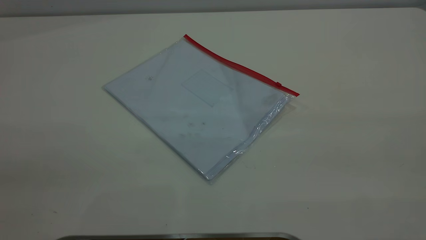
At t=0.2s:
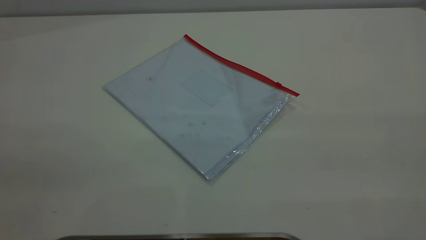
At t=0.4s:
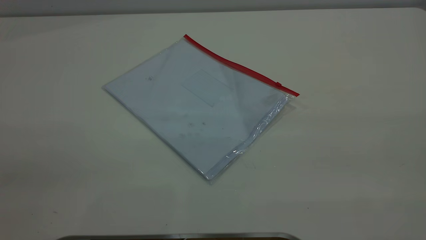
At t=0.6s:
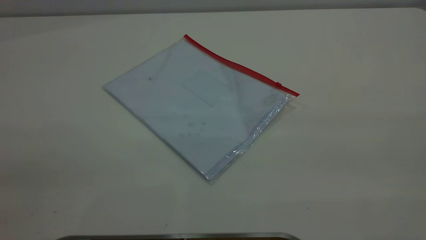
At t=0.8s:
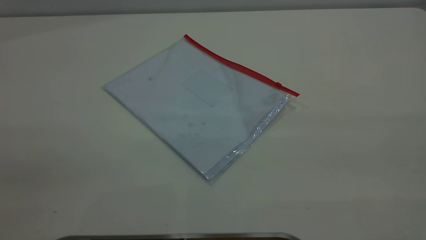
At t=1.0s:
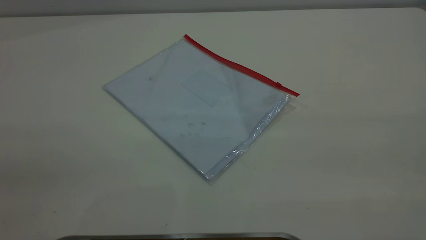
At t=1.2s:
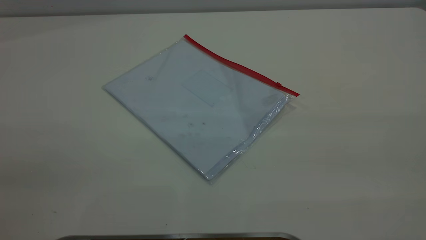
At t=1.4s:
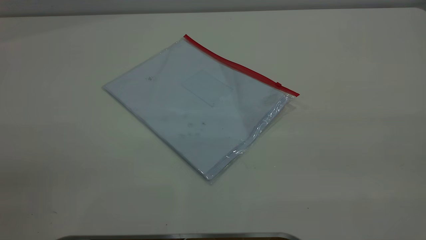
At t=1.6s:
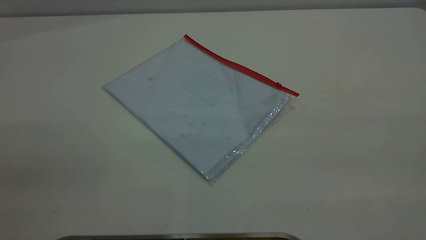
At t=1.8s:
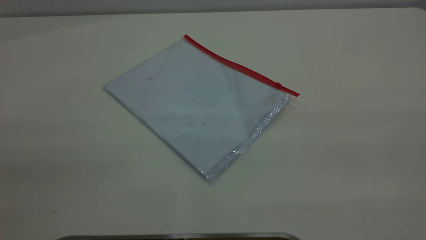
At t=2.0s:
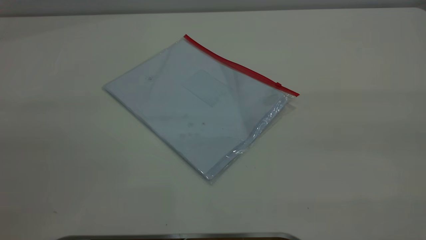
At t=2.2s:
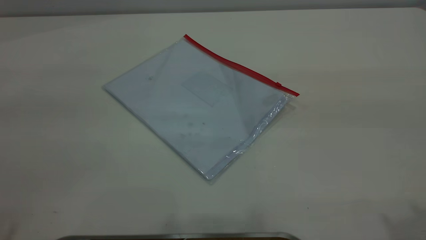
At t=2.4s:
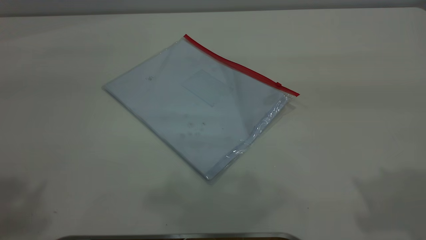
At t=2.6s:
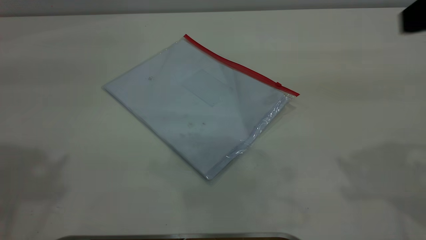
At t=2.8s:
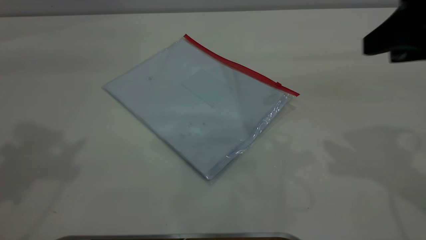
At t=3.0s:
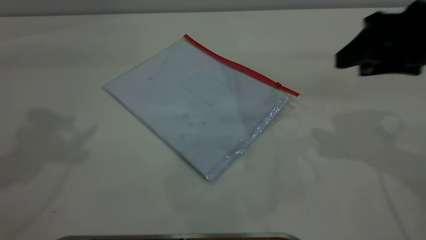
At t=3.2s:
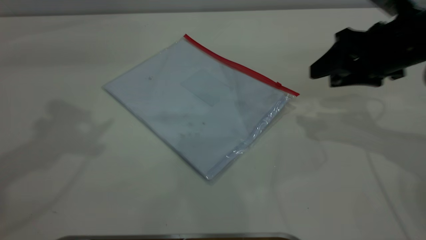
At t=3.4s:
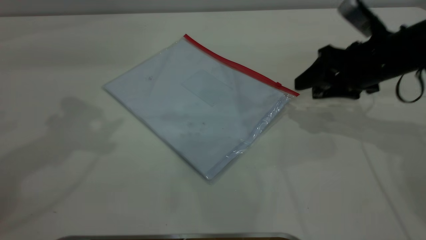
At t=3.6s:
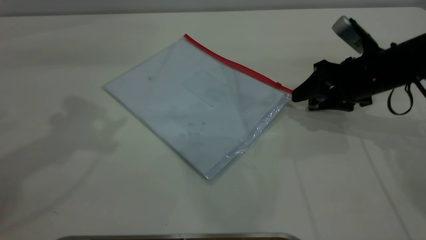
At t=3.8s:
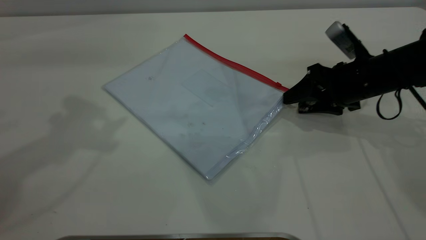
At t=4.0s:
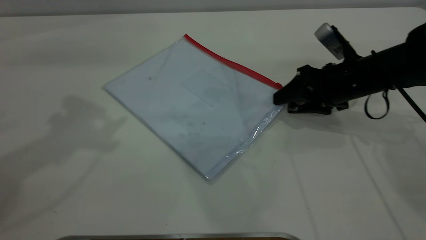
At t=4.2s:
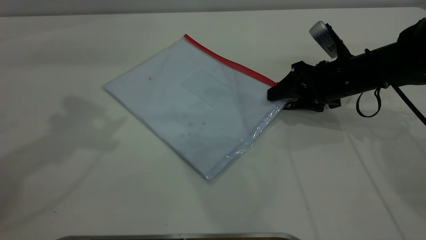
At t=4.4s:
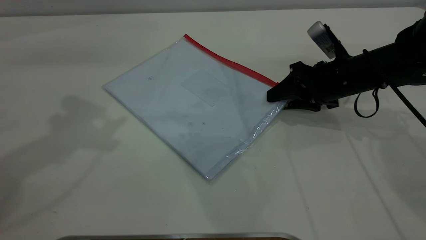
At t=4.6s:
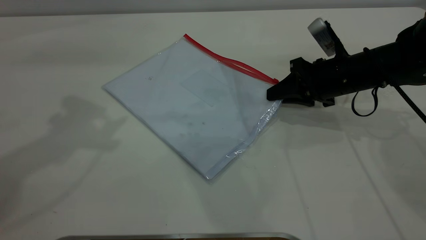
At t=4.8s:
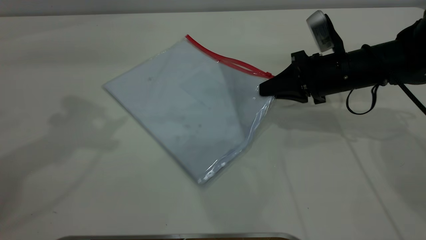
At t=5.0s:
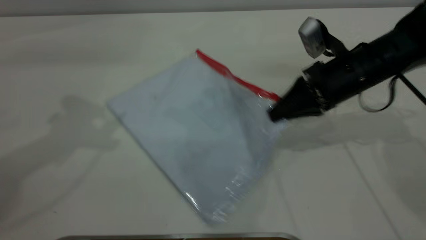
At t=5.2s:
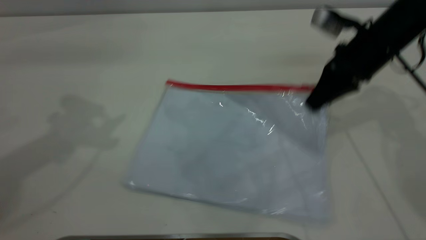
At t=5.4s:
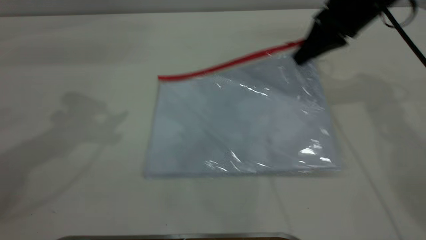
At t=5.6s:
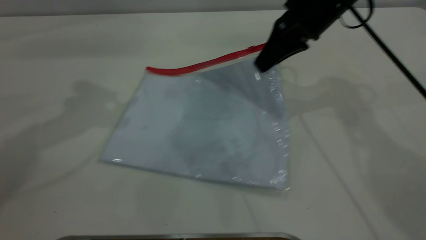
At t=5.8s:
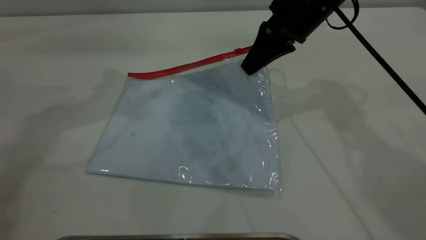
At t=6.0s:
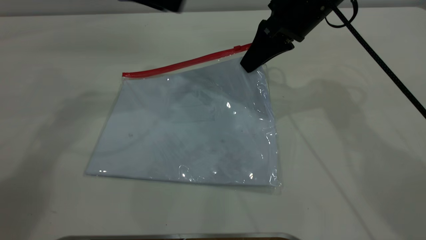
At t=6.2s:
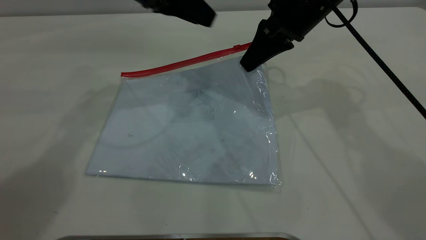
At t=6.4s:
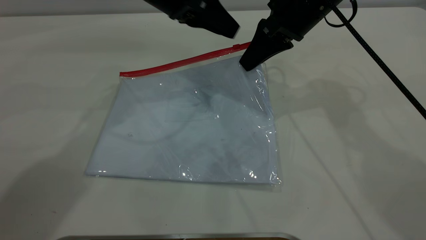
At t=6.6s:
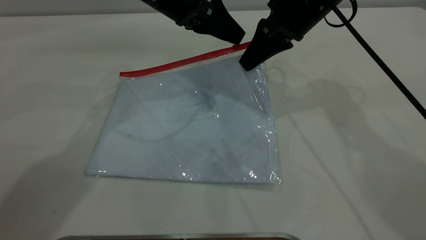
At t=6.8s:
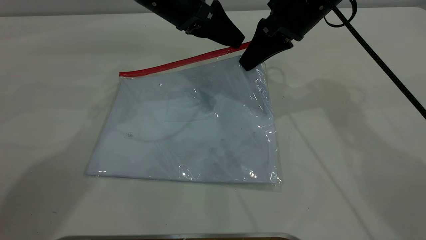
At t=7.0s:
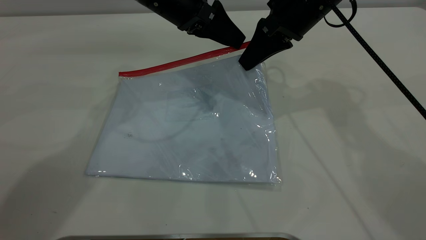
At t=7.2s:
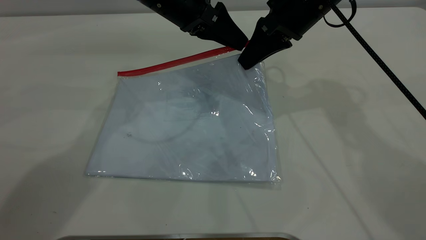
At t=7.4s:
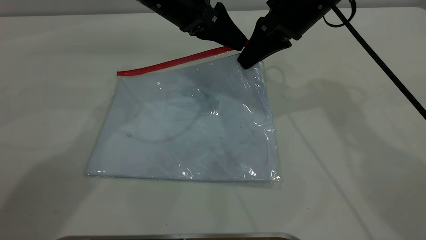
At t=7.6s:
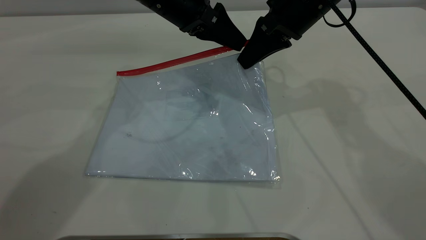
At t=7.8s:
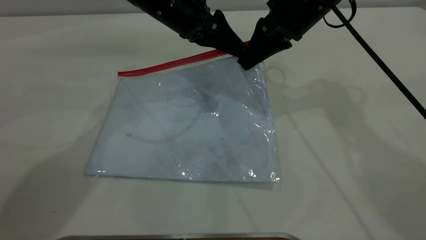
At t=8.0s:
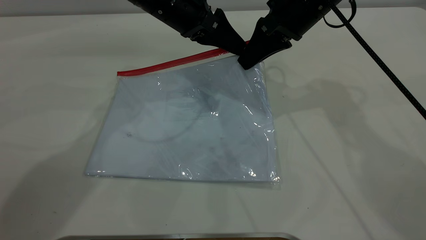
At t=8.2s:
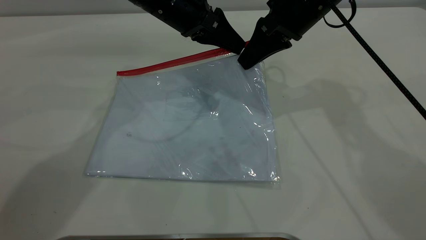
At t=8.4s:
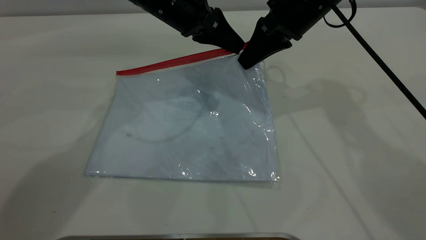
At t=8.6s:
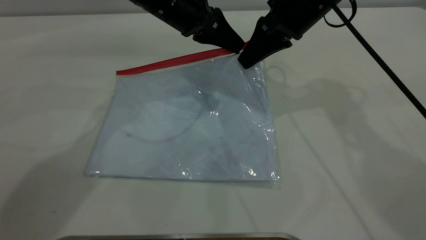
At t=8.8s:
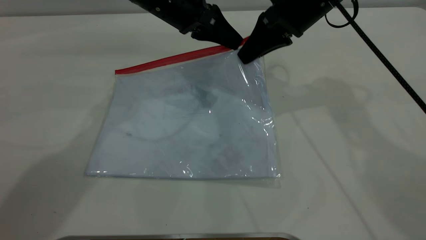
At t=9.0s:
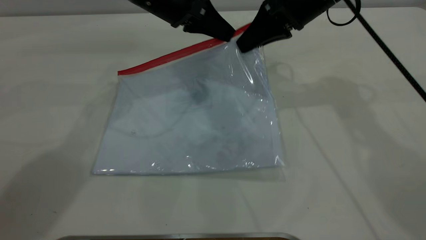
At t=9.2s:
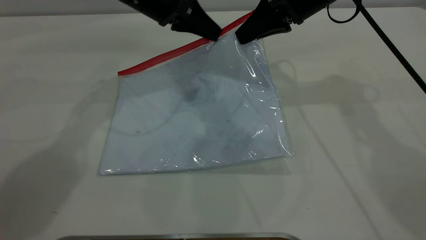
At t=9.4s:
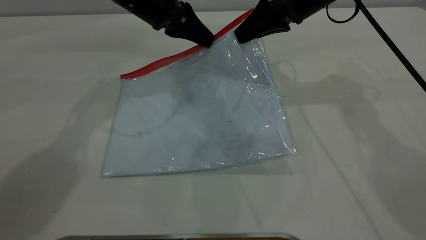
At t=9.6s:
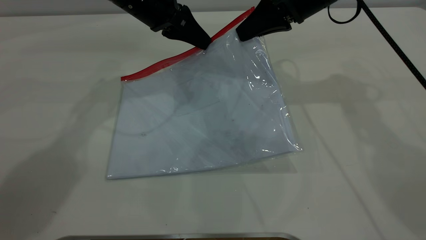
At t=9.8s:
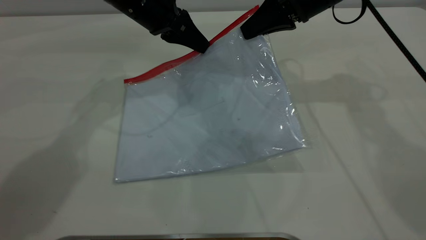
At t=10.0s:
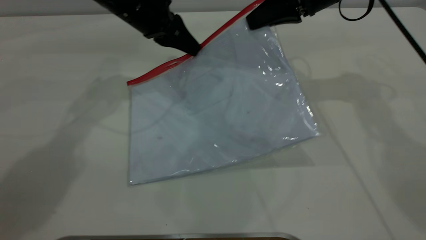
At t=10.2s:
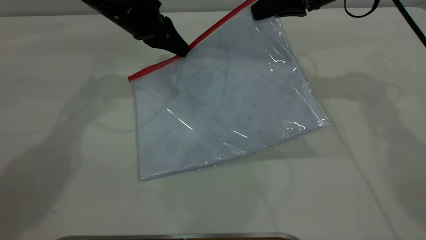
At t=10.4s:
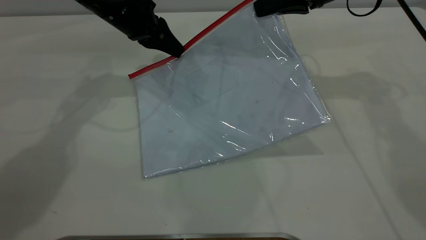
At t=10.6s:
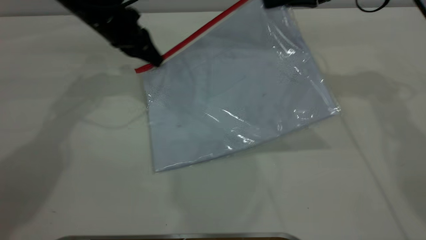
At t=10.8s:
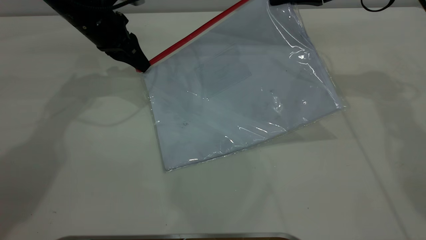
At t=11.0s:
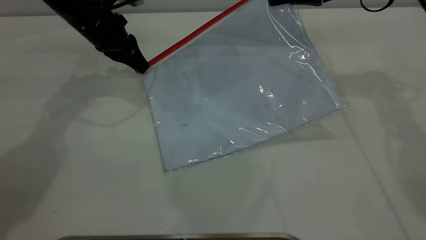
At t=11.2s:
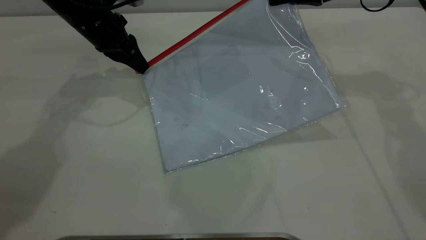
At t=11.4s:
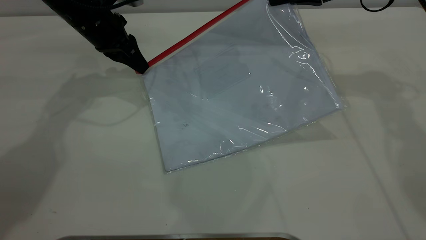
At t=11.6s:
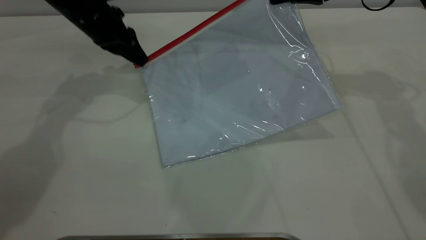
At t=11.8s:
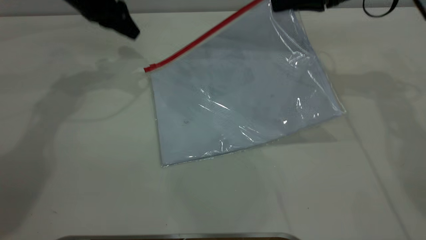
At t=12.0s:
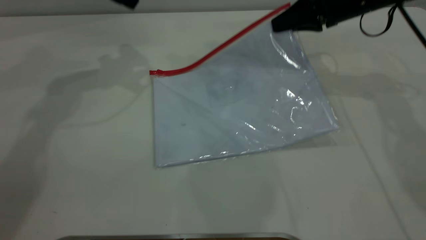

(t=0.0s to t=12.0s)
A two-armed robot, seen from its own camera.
Step, t=0.0s - t=5.8s: Pick up the transparent plastic bag with the right gripper.
Step, t=6.0s - t=11.6s: Pulling up the zipper on the transparent plastic bag with the left gripper to close it.
t=0.0s - t=1.6s: The two grippers keep their place.
t=1.6s - t=3.0s: The right gripper travels forward and downward by roughly 35 cm.
t=3.0s - t=4.4s: The right gripper moves downward and forward, some 15 cm.
t=4.4s - t=6.0s: The right gripper goes approximately 15 cm upward and to the left, and closes; the left gripper heads forward, downward and to the right, covering some 15 cm.
t=6.0s - t=7.6s: The left gripper heads to the right and downward, covering approximately 10 cm.
t=7.6s - t=9.0s: The left gripper closes up.
t=9.0s - t=10.4s: The left gripper goes some 5 cm to the left.
t=10.4s - t=12.0s: The left gripper shifts approximately 10 cm upward, and opens up; the right gripper goes approximately 5 cm downward.

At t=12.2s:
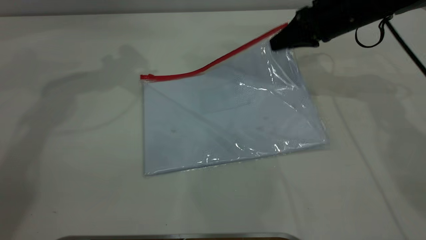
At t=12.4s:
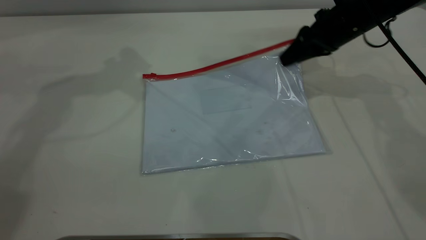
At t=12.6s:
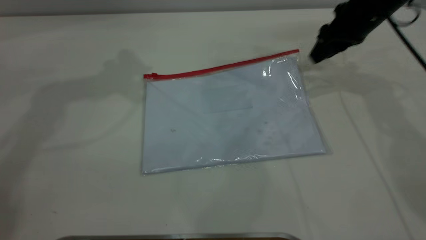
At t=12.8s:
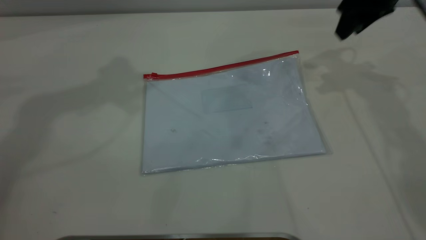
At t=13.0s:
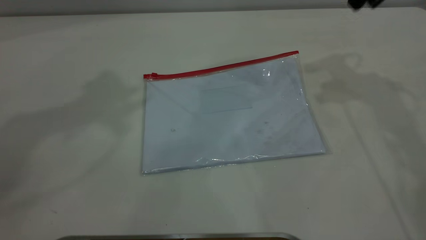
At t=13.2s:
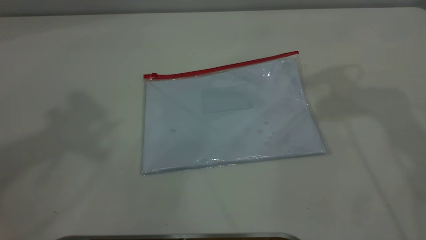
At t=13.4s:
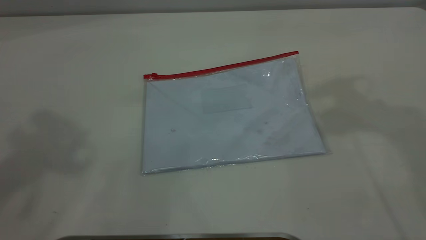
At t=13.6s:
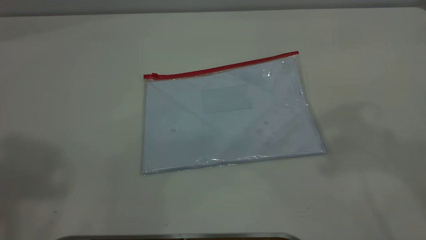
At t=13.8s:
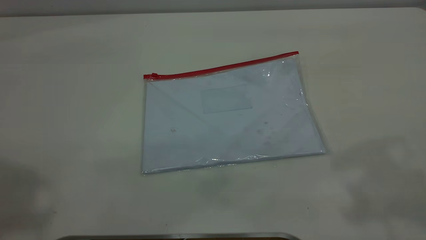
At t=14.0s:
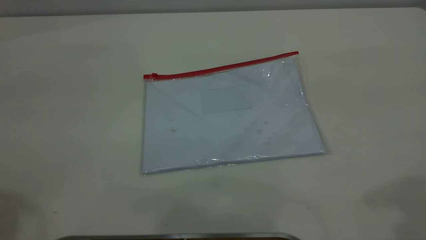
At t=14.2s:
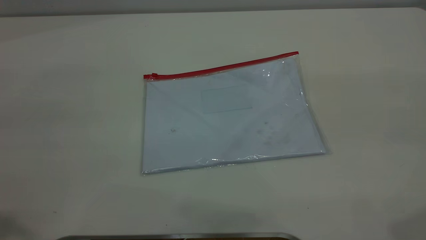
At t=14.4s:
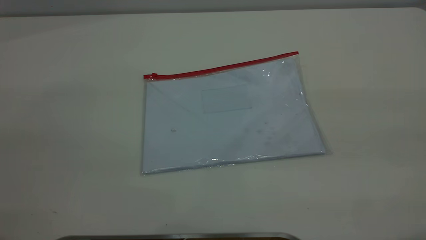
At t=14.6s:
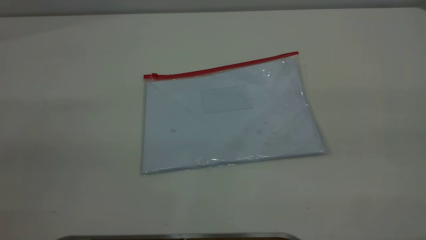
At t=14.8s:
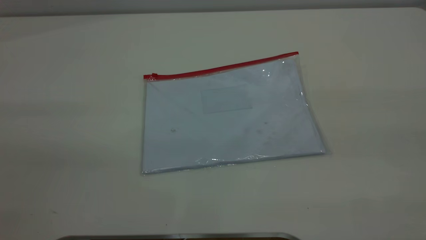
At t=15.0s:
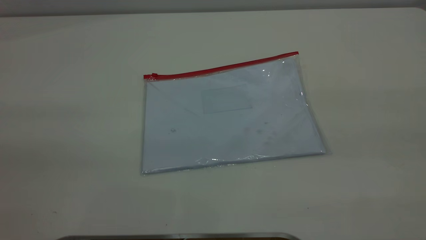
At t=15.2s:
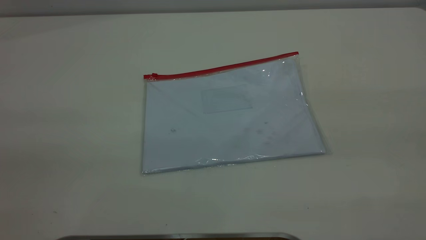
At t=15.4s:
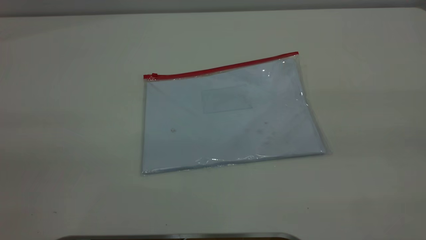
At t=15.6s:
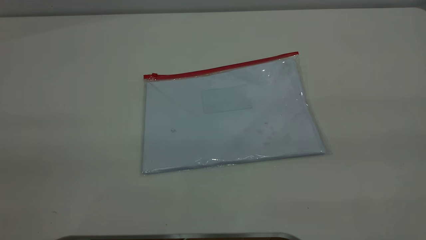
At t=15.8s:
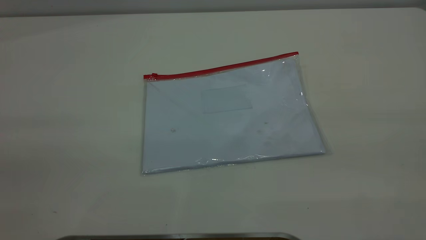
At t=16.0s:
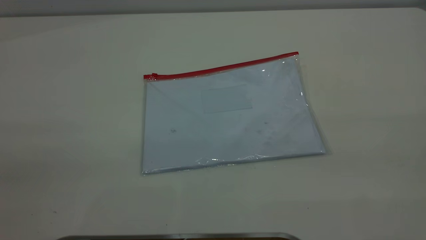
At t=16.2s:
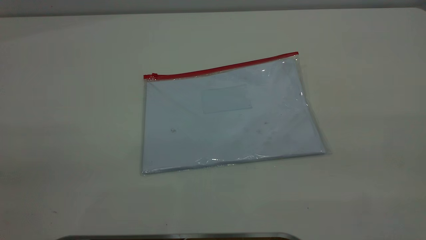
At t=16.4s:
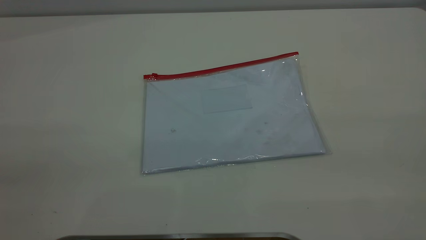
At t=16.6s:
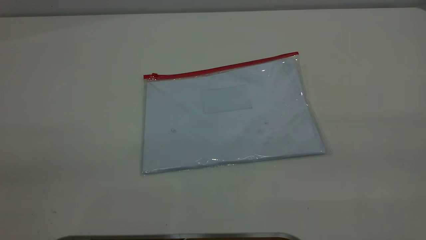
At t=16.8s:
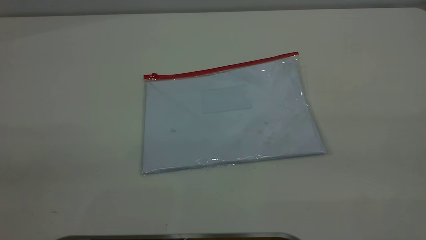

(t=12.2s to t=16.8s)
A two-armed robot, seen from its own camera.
Step, t=12.2s - t=12.8s: Place the transparent plastic bag.
t=12.2s - t=13.8s: The left gripper travels backward and upward by about 35 cm. The right gripper goes some 40 cm upward and backward, and opens its fingers.
